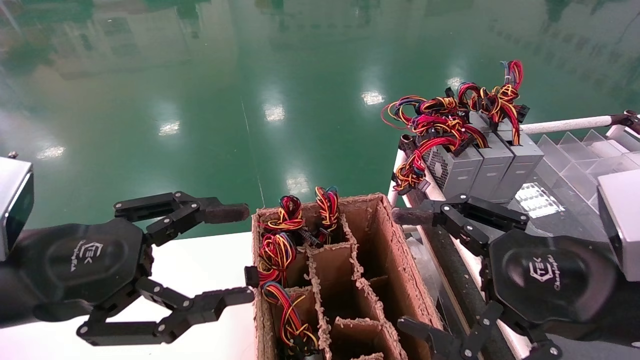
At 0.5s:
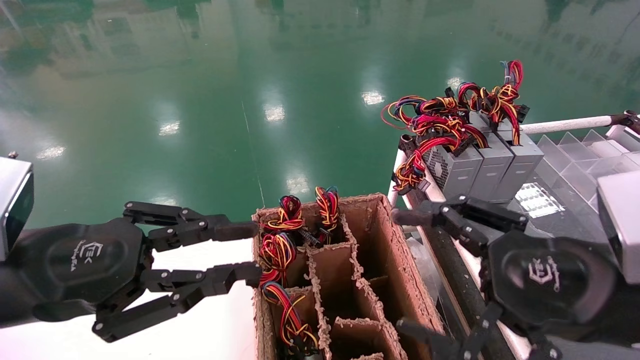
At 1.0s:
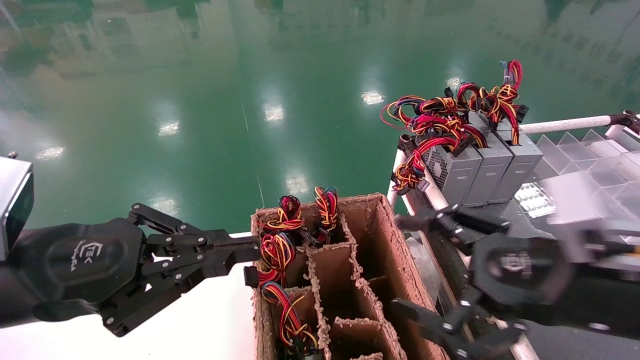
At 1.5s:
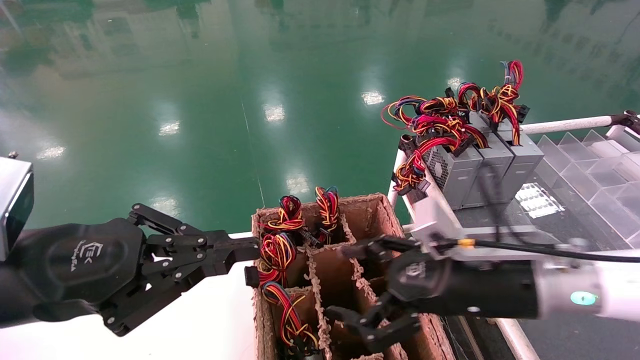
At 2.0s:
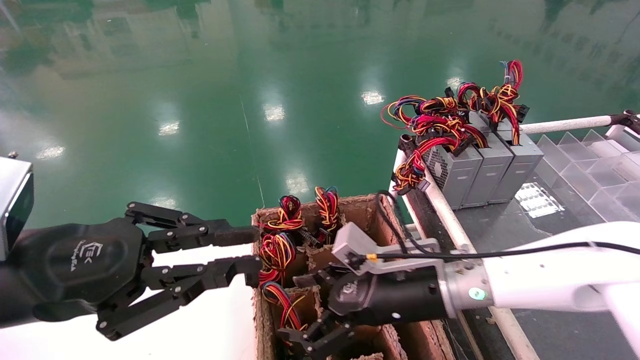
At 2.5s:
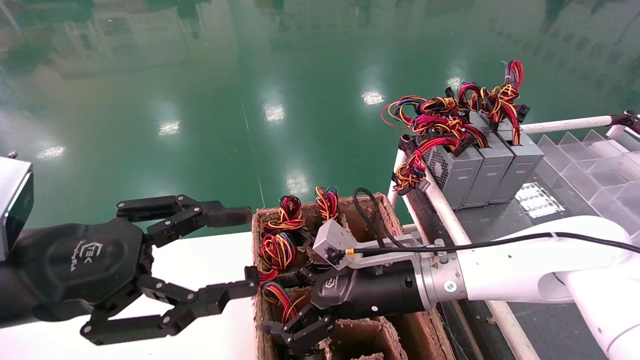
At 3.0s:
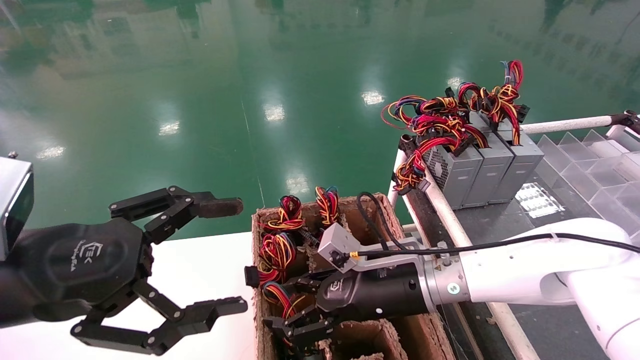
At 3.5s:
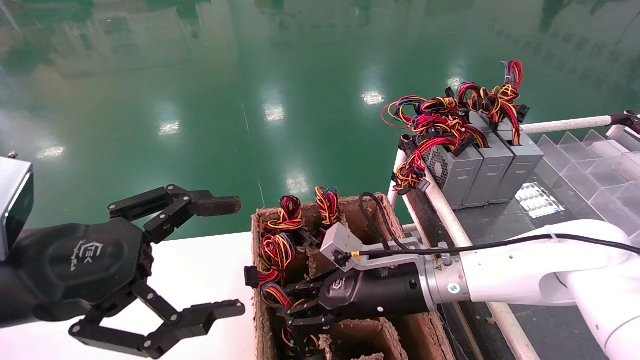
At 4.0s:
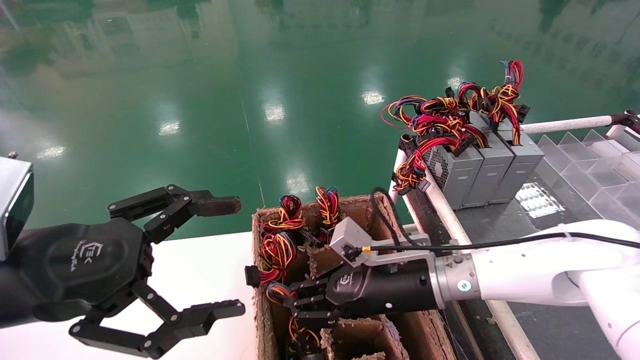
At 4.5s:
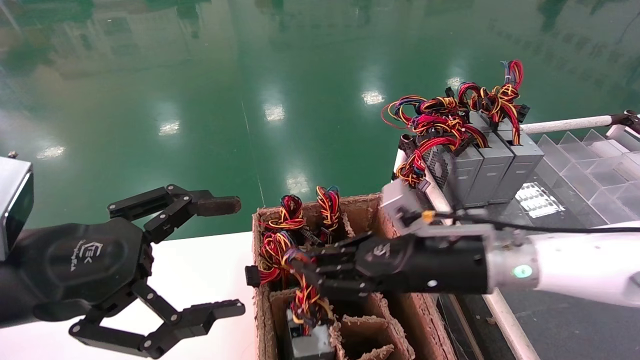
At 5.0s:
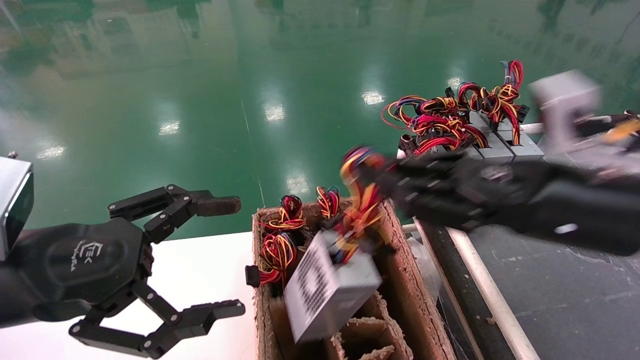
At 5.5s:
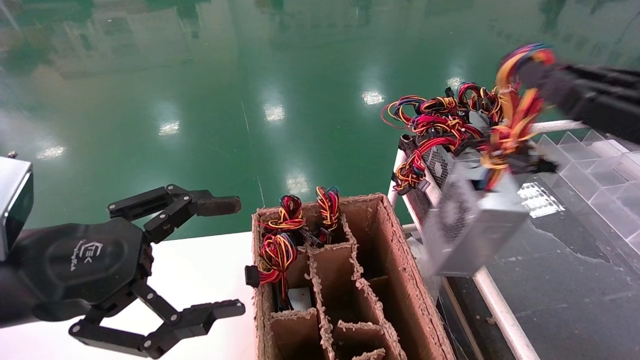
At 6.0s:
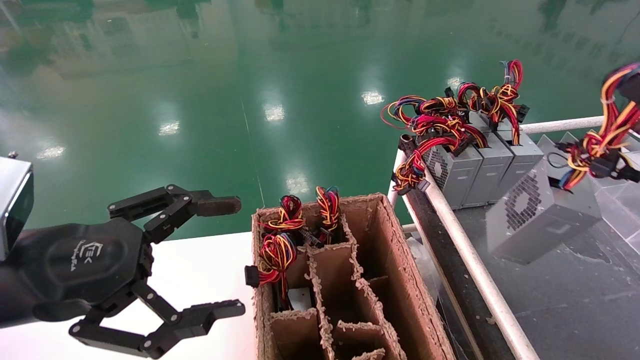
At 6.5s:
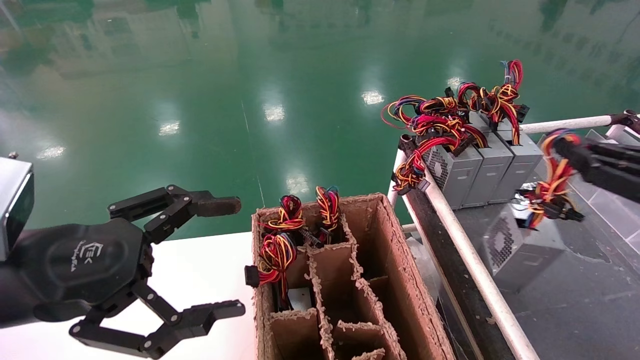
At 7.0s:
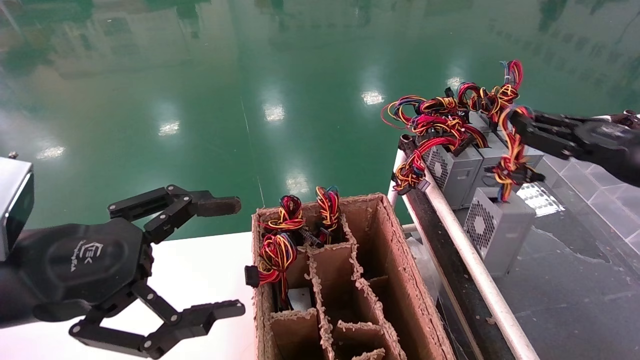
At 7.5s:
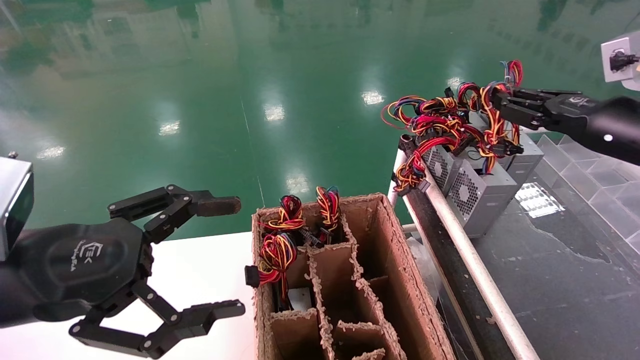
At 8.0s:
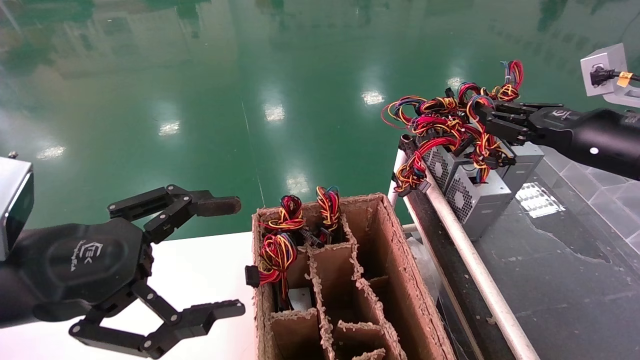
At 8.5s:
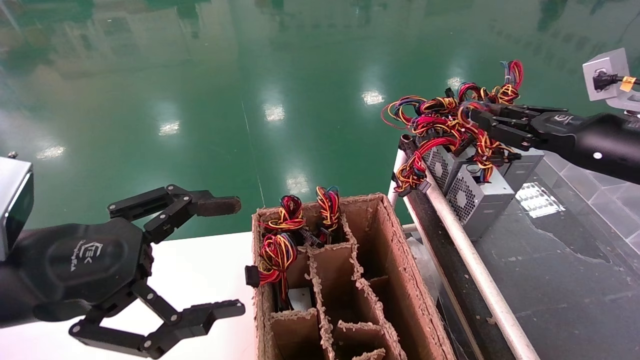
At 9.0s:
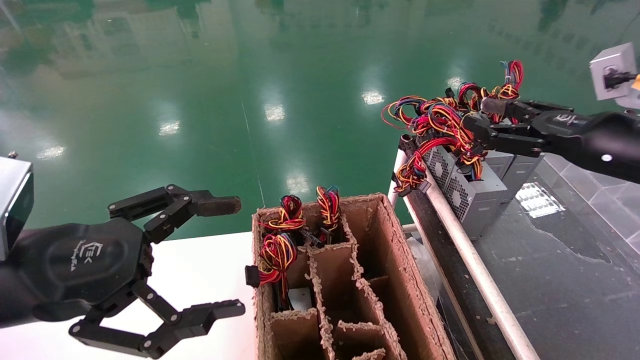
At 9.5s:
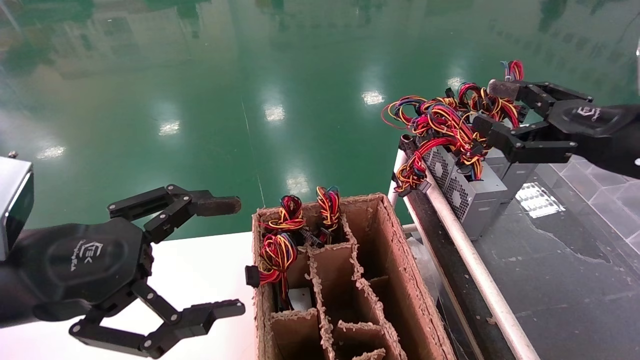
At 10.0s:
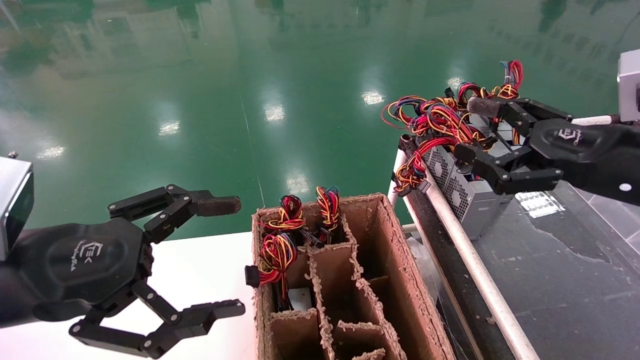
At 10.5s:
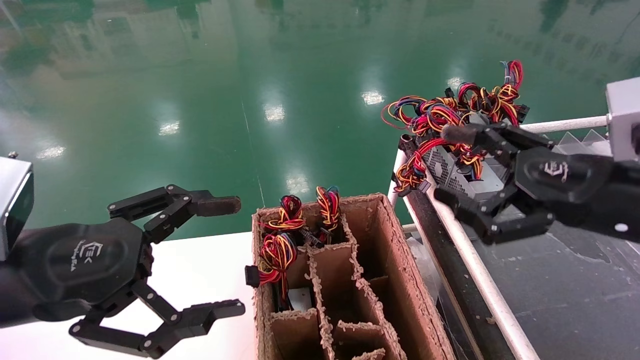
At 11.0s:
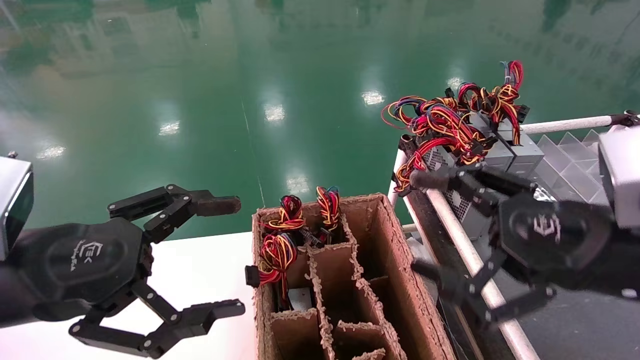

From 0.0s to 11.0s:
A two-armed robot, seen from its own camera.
Step, from 1.5s to 3.5s: Grab and lift the power supply from the large box.
Step, from 4.0s to 8.5s: Place the power supply on the operating table.
From 0.0s to 2.0s: The left gripper closes. The right gripper goes some 20 cm forward, to the left and downward.
From 2.0s to 3.5s: The left gripper opens up. Meanwhile the right gripper closes up.
From 3.5s to 5.5s: The right gripper heads to the right, upward and backward, covering approximately 35 cm.
From 5.5s to 7.5s: The right gripper shifts some 15 cm forward.
From 7.5s to 9.0s: The right gripper opens.
From 9.0s to 11.0s: The right gripper shifts roughly 15 cm backward and to the left, and opens up.

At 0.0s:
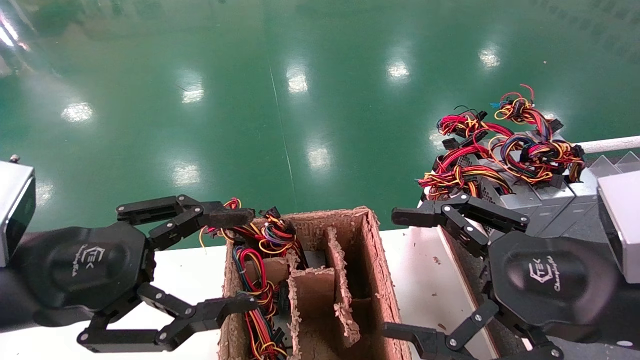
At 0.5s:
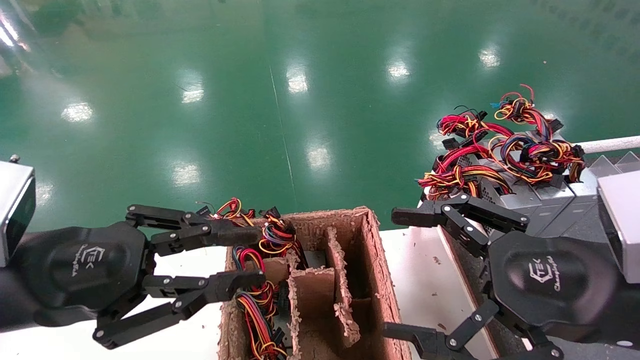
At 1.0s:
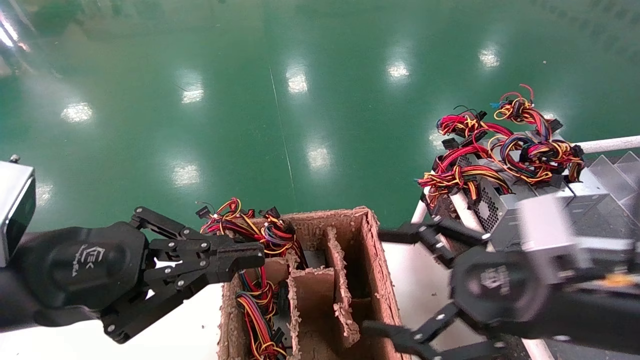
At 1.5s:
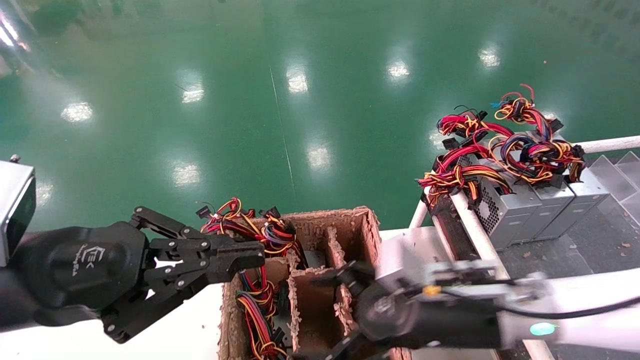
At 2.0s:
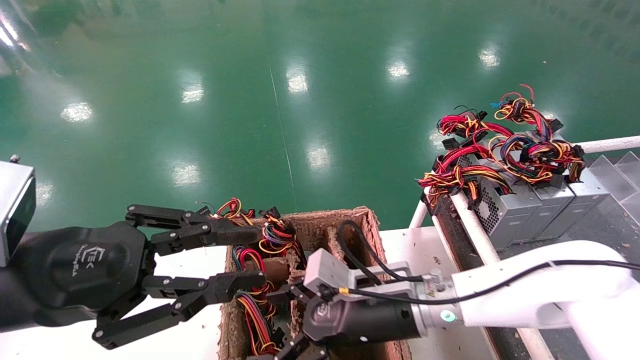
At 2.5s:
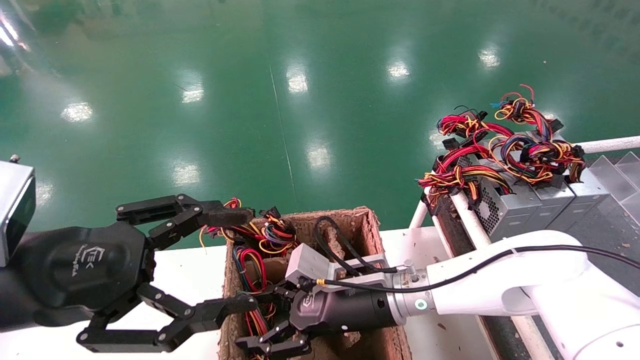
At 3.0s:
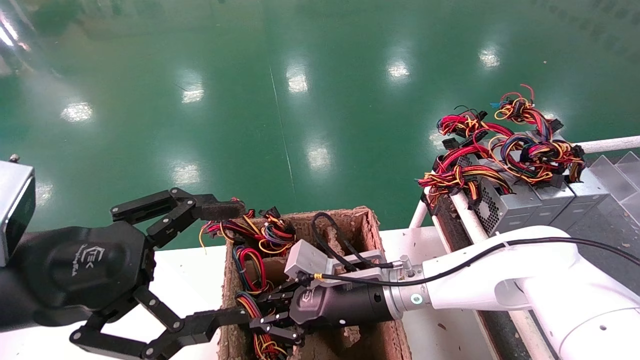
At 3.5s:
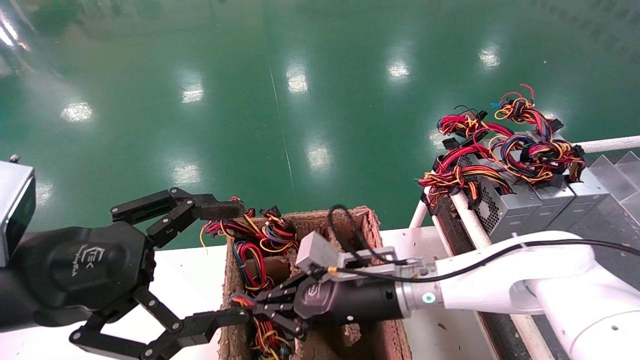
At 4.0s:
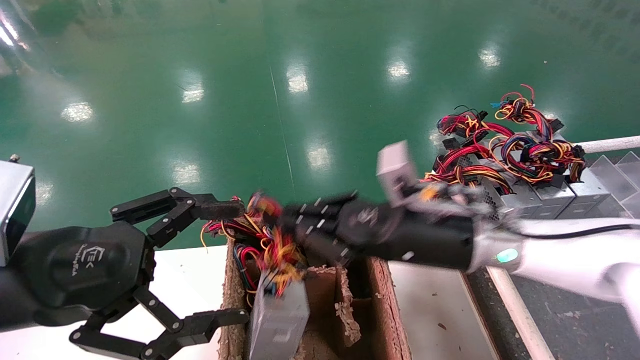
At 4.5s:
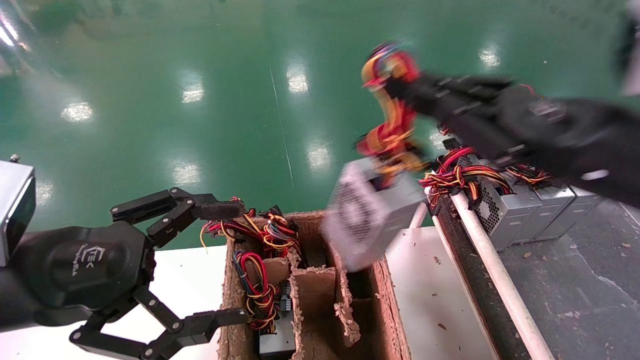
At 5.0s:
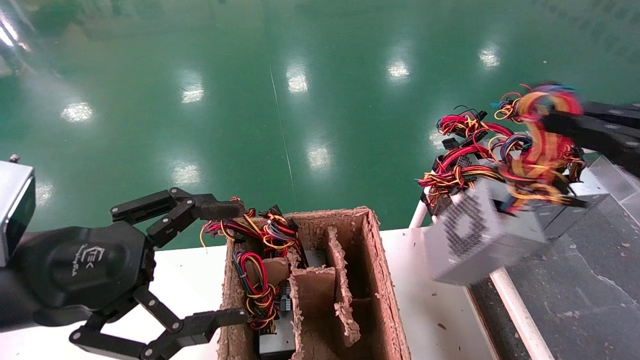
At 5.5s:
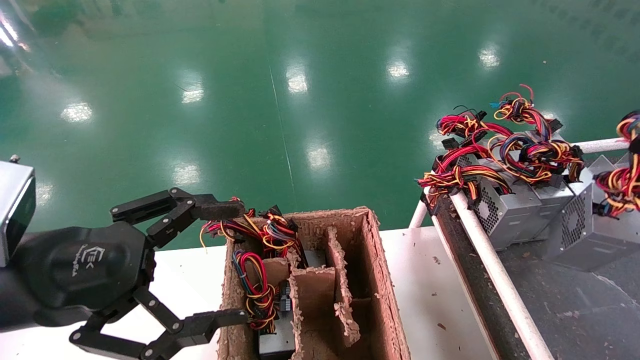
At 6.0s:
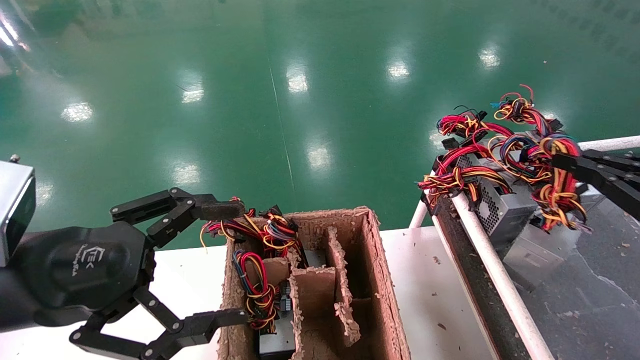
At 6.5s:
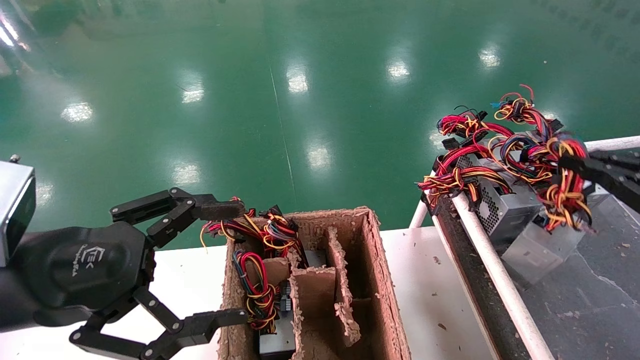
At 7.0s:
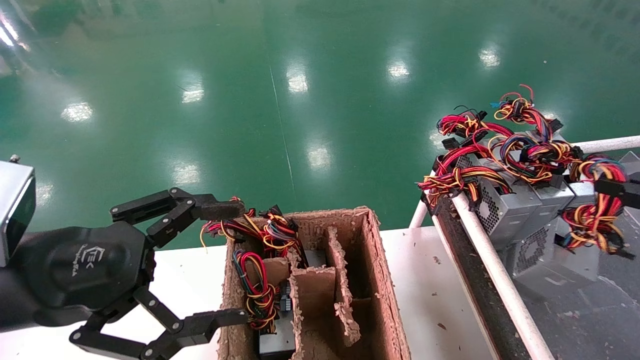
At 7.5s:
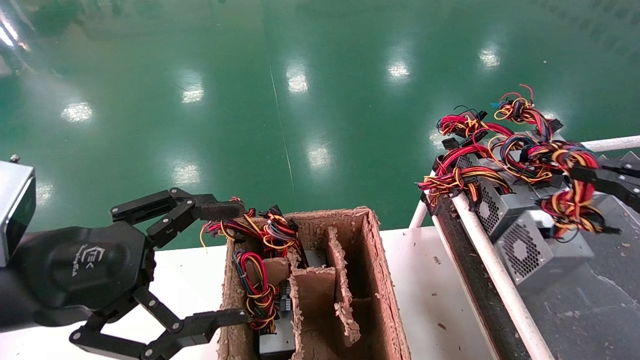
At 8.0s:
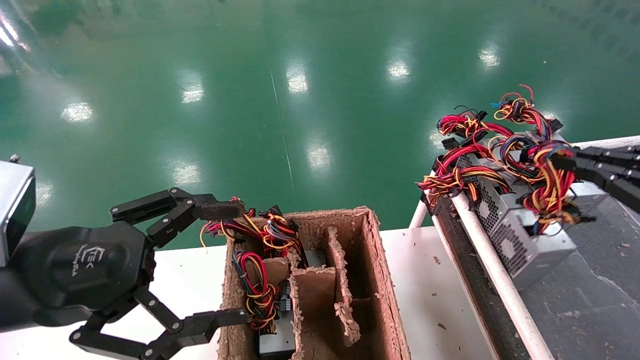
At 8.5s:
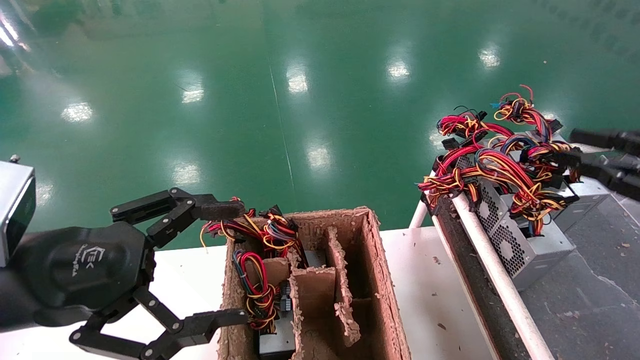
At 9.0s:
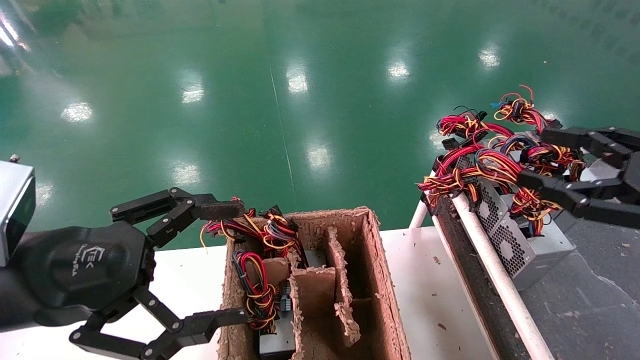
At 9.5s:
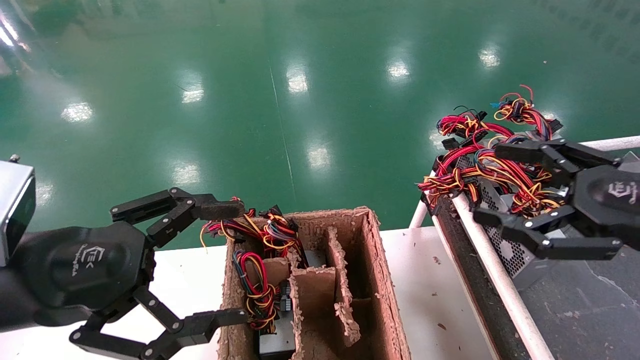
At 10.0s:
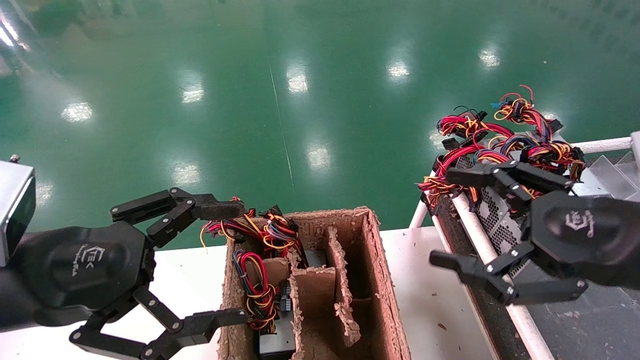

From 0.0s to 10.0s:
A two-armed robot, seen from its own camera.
Step, from 1.5s to 3.5s: Grab and lift the power supply from the large box.
Step, from 4.0s to 8.0s: Place the power supply on the operating table.
From 0.0s to 2.0s: The left gripper closes its fingers. The right gripper is displaced to the left, forward and downward by roughly 25 cm.
From 2.0s to 4.0s: The left gripper opens; the right gripper is displaced upward and to the right by some 10 cm, and closes its fingers.
From 4.0s to 6.0s: The right gripper is displaced to the right by some 30 cm.
From 6.0s to 8.0s: The grippers stay close to where they were, moving slightly.
From 8.0s to 10.0s: The right gripper heads to the left, covering roughly 15 cm, and opens its fingers.
